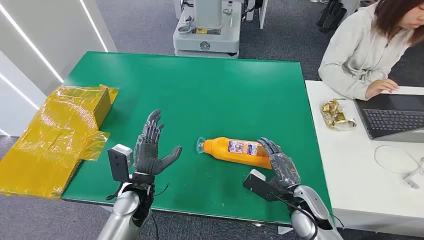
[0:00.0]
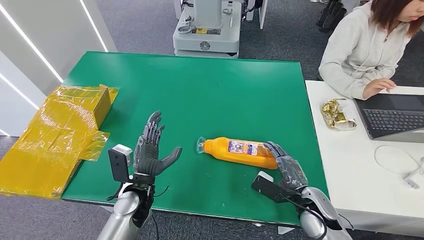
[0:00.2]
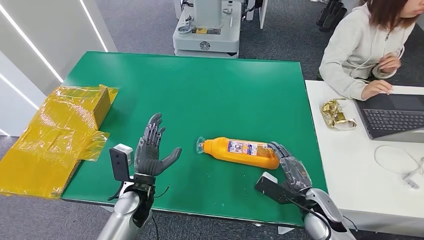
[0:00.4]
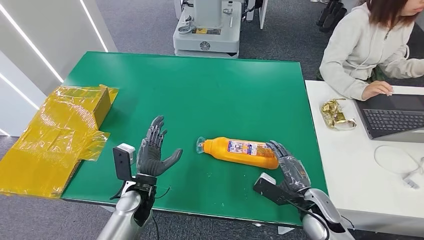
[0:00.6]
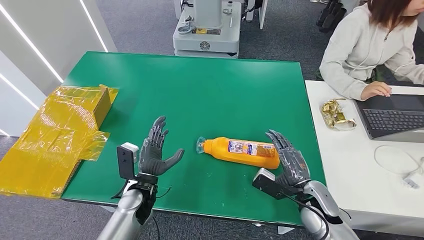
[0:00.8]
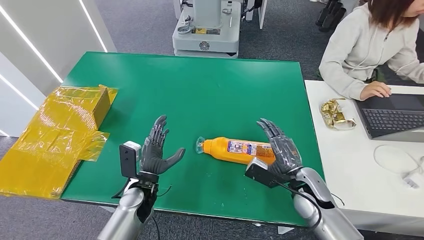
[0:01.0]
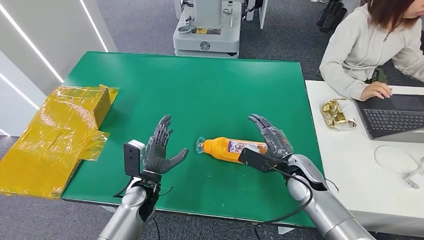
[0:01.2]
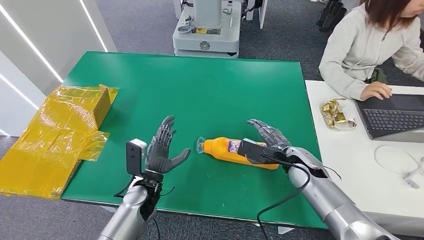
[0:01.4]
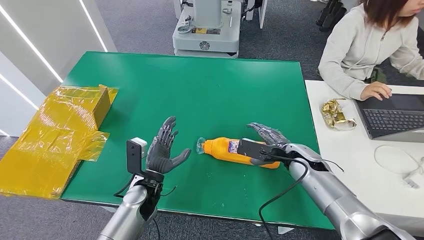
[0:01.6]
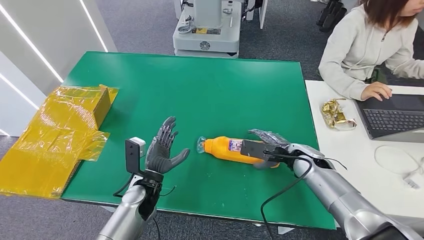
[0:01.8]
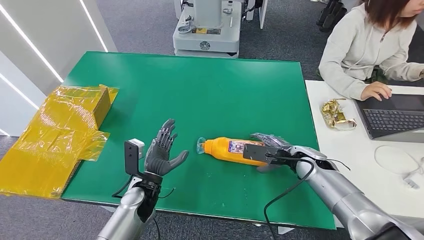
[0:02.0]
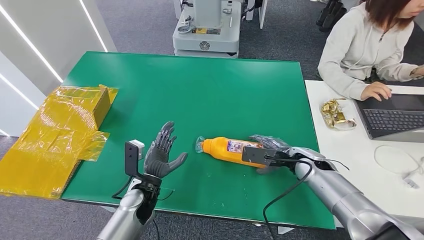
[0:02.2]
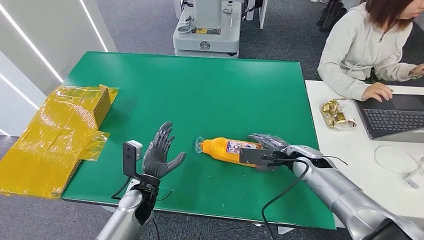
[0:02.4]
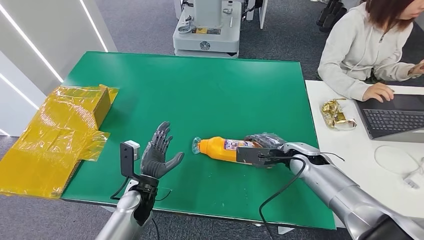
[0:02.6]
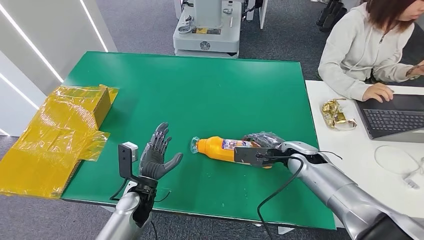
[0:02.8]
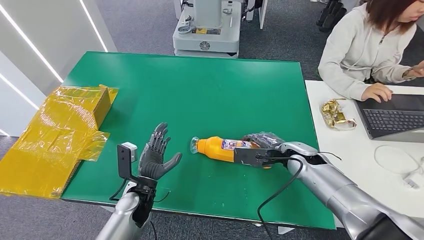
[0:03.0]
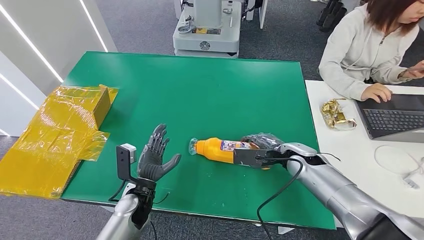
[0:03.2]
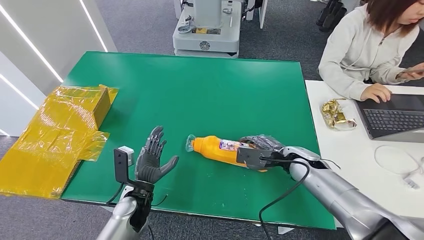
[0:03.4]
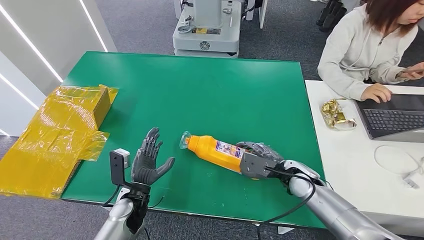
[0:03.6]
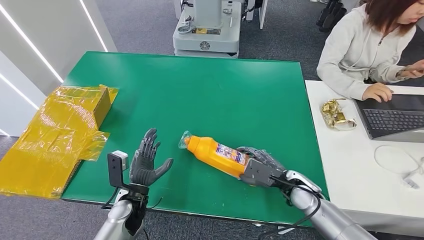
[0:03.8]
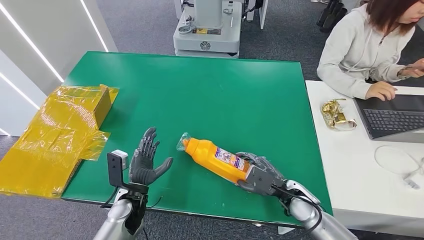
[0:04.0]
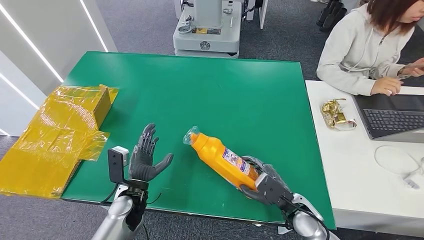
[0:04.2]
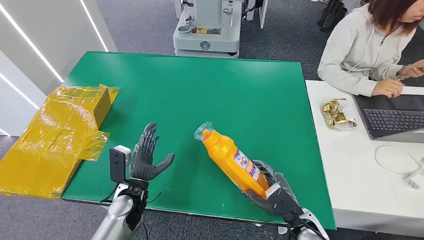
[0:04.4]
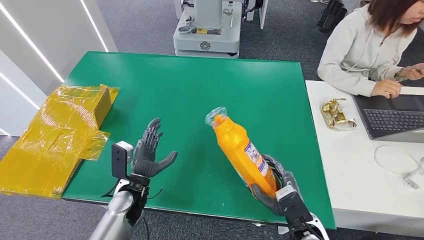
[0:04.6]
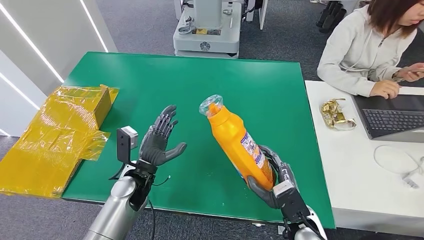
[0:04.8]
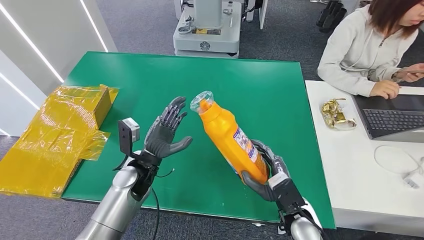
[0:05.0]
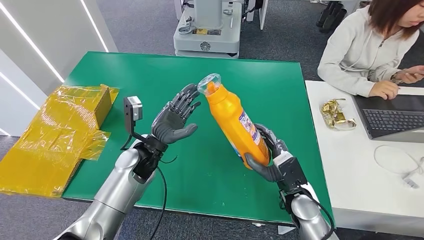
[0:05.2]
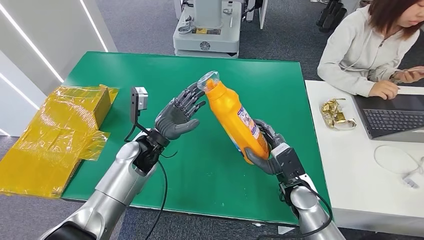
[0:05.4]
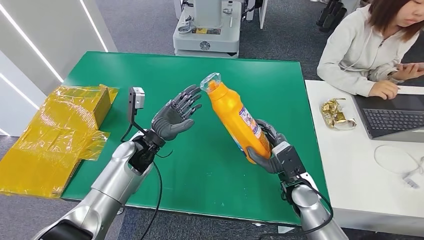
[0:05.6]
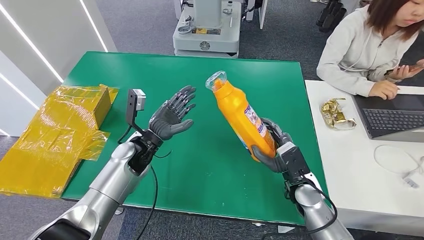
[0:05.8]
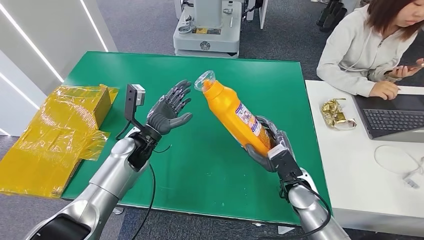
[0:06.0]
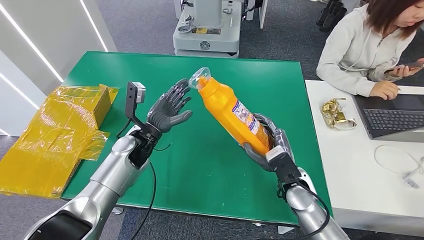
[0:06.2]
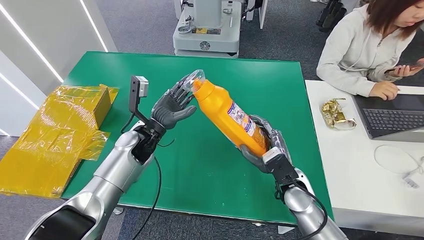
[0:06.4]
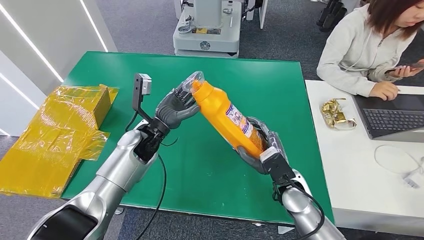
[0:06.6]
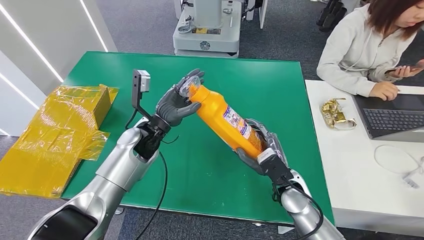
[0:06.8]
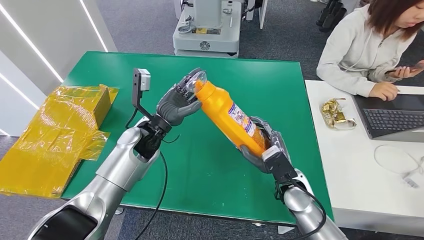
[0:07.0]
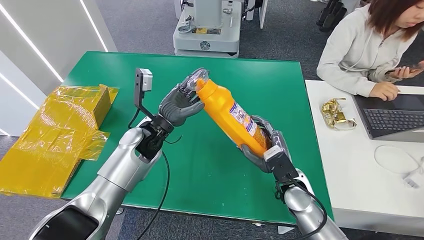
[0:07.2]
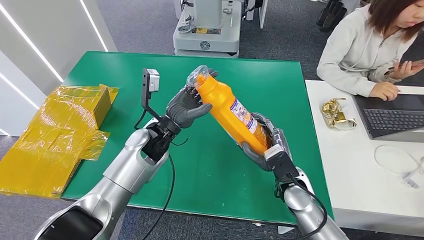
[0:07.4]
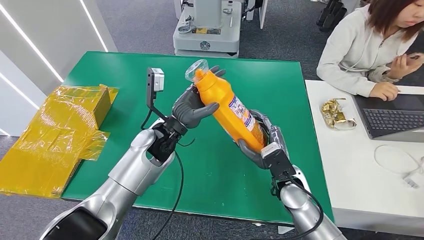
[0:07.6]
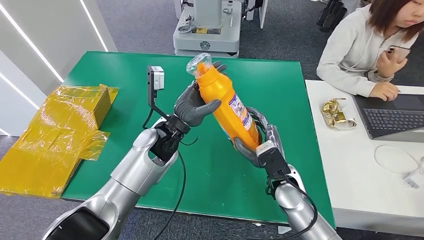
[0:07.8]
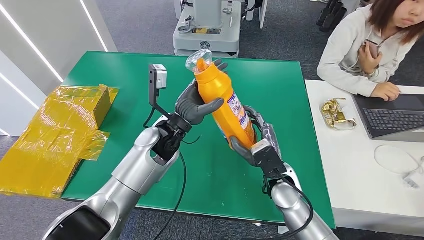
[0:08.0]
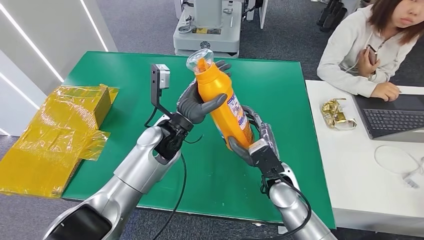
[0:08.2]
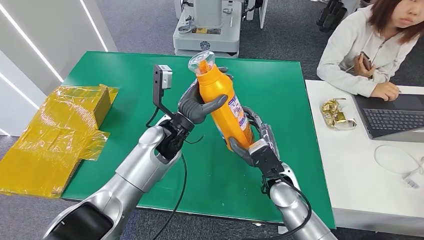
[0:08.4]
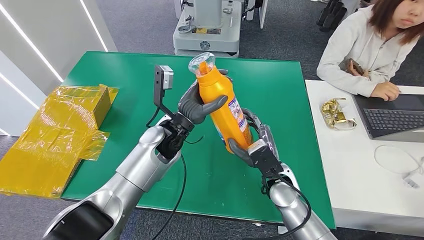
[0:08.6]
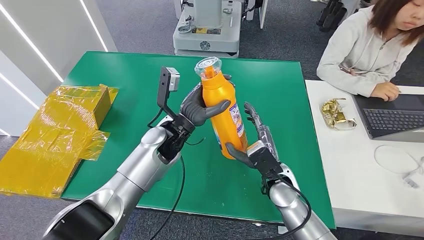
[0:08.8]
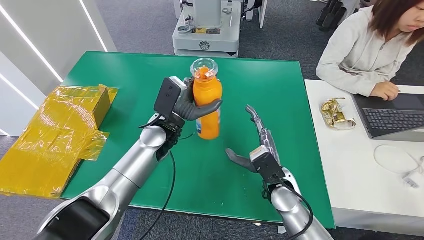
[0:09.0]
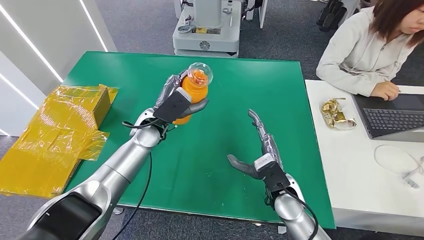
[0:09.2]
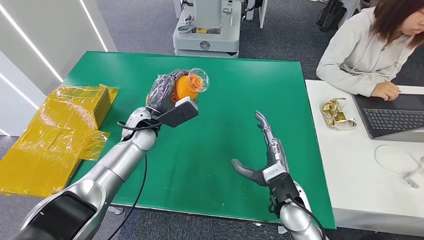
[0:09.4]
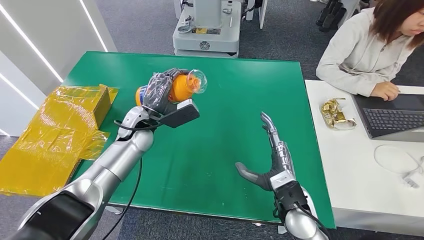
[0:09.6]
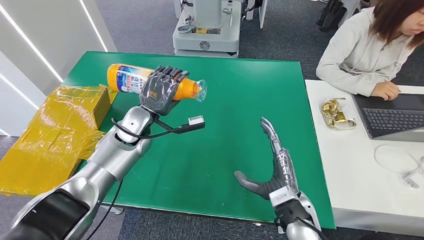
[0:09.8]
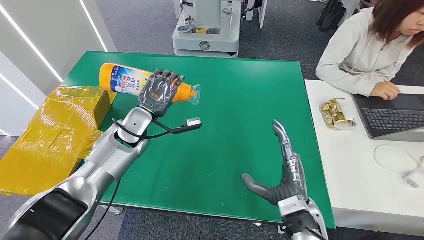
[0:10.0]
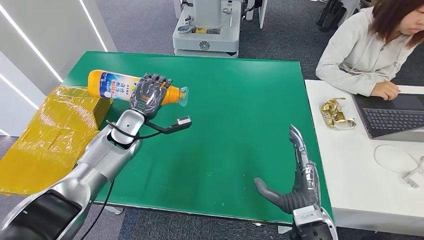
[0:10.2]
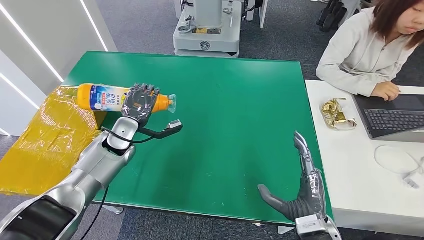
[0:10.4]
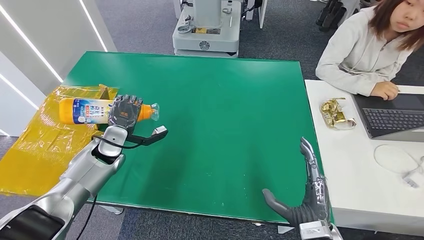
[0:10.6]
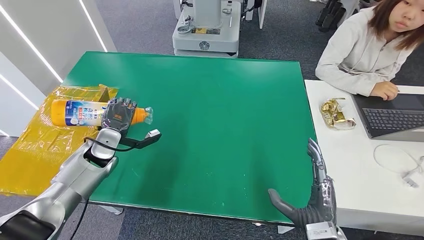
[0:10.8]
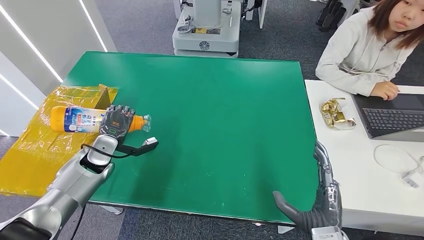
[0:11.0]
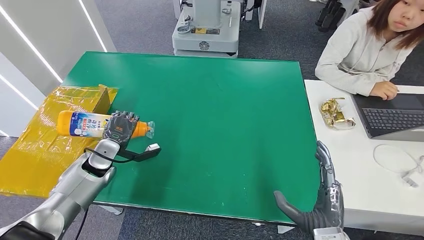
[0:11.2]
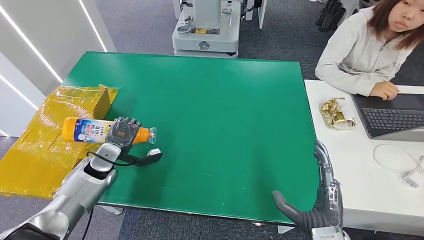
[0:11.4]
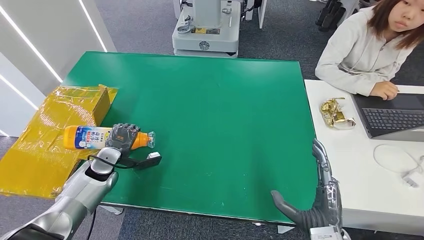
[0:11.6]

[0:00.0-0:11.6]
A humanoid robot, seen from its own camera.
Step, 0:00.0 to 0:05.4: Pick up the bottle from the table.
0:01.4 to 0:02.8: There are only small adjustments of the hands.
0:02.8 to 0:04.4: The right hand shifts some 20 cm backward and downward.
0:05.8 to 0:07.2: The left hand moves some 5 cm.
0:07.2 to 0:08.8: The left hand travels to the right by some 5 cm.
0:10.2 to 0:11.6: The right hand ends up some 5 cm from where it was, while the left hand is displaced downward, to the left and backward by some 15 cm.

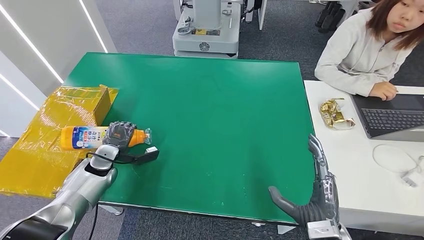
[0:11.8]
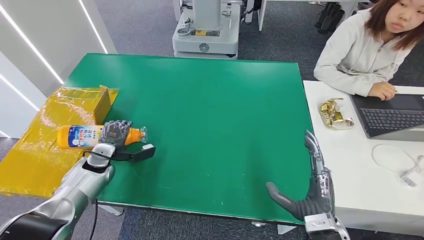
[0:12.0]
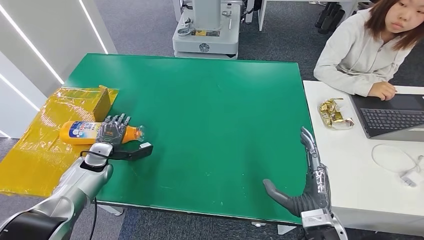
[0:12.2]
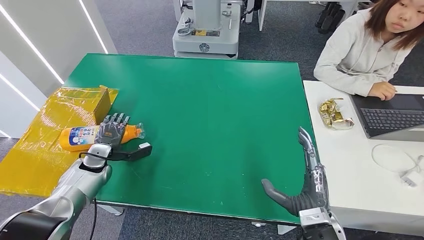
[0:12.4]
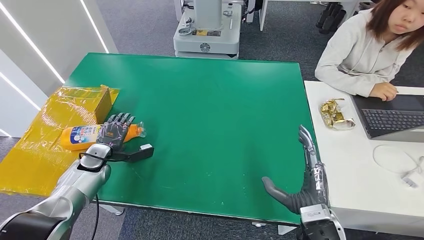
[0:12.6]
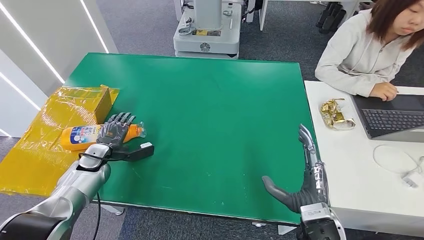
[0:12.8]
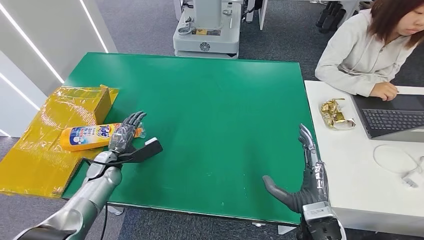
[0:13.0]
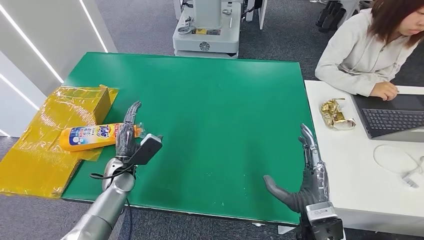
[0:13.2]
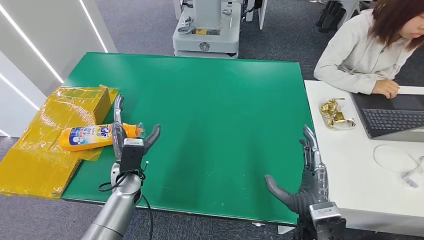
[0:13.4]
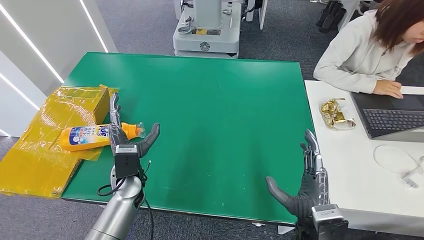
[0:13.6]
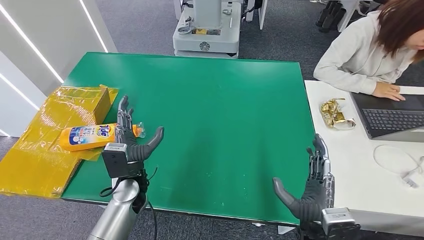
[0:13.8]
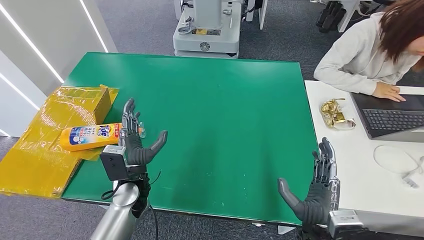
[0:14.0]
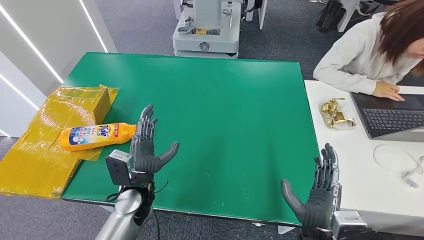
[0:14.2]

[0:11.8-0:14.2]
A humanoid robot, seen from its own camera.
Step, 0:11.8 to 0:14.2: Turn the bottle to the front side.
0:13.0 to 0:14.2: The left hand moves to the right and backward, approximately 20 cm. The right hand changes place by about 5 cm.
